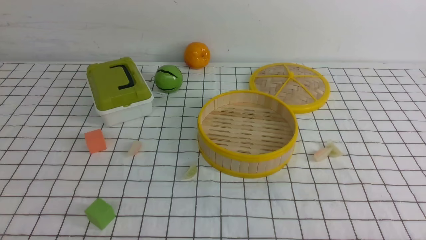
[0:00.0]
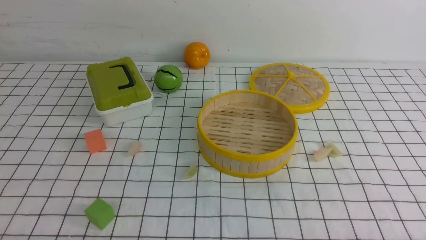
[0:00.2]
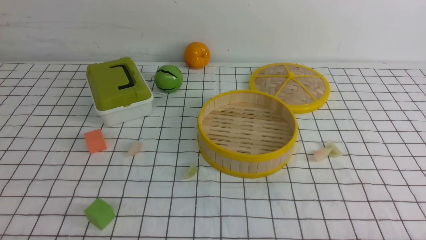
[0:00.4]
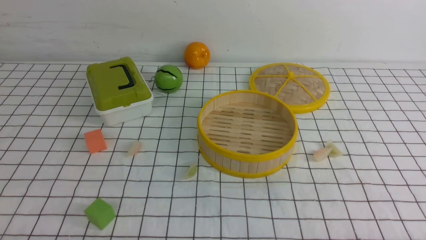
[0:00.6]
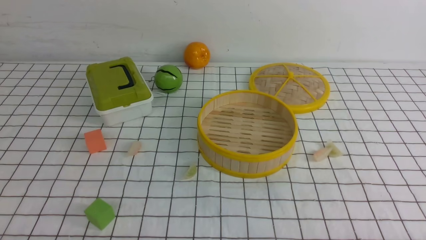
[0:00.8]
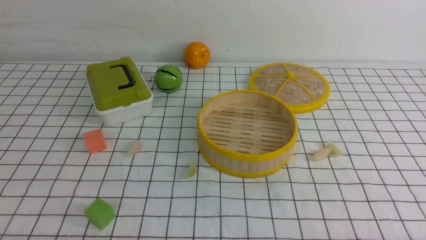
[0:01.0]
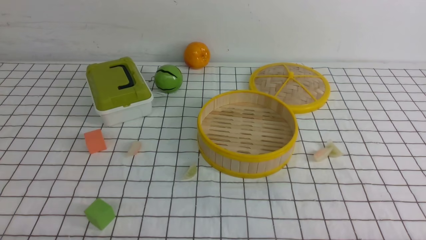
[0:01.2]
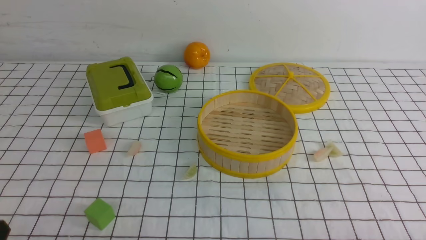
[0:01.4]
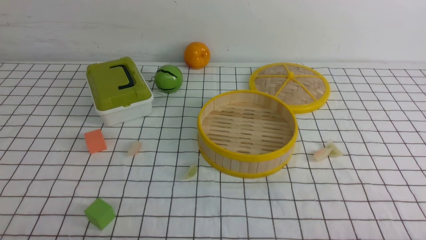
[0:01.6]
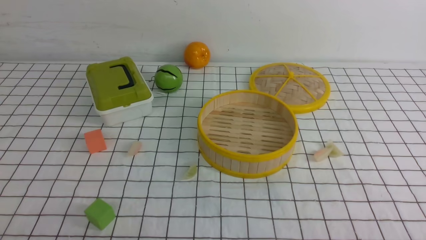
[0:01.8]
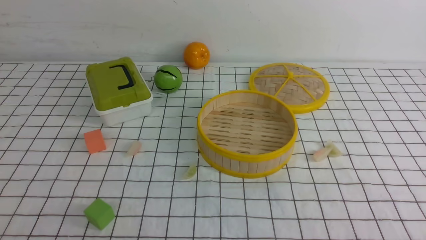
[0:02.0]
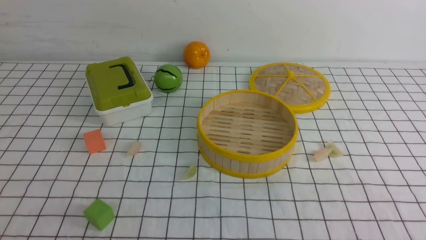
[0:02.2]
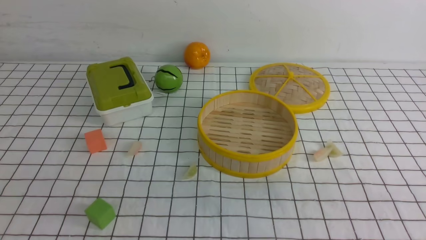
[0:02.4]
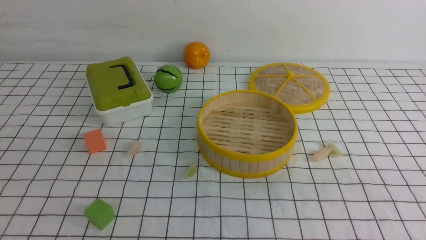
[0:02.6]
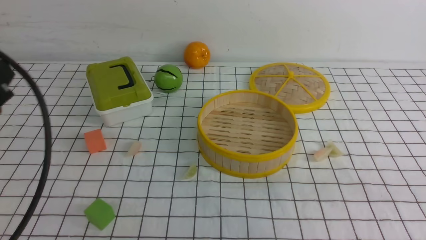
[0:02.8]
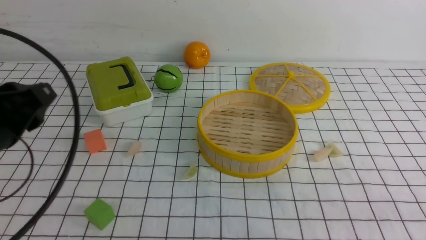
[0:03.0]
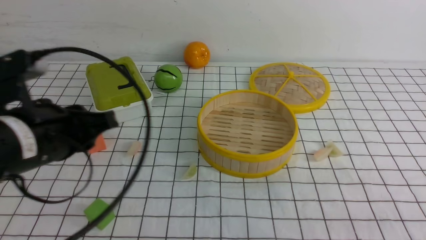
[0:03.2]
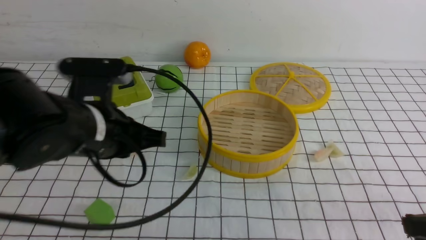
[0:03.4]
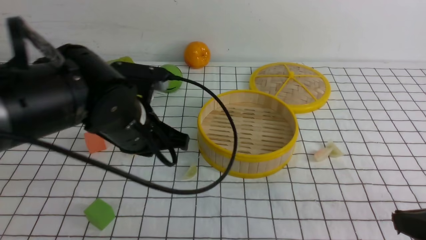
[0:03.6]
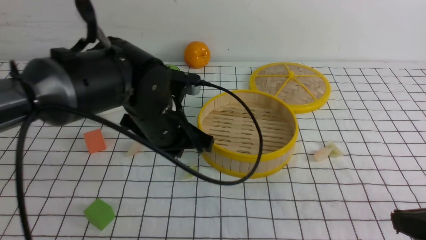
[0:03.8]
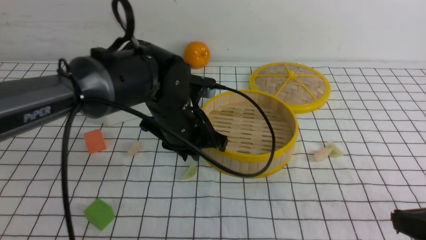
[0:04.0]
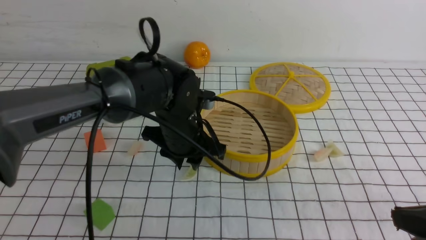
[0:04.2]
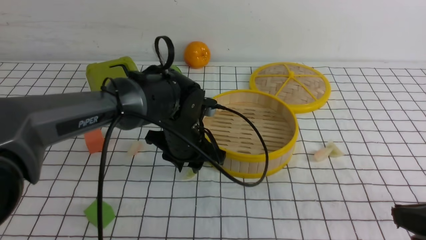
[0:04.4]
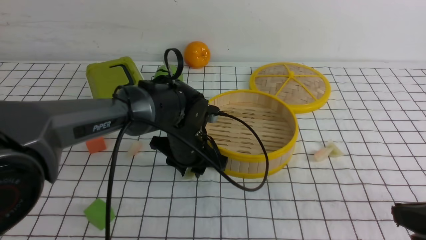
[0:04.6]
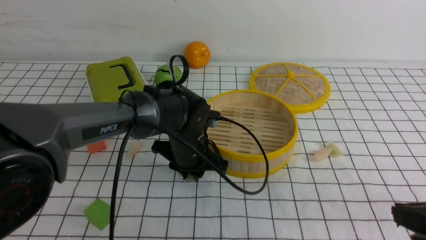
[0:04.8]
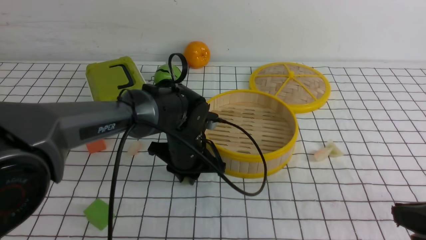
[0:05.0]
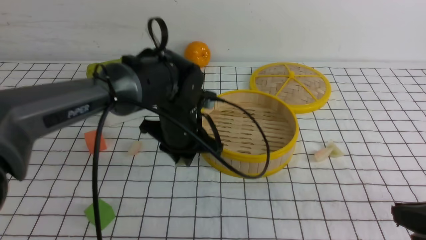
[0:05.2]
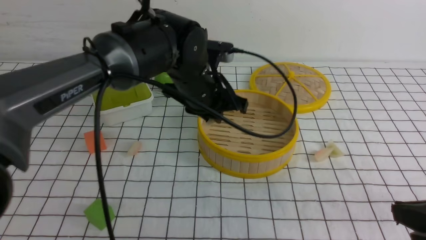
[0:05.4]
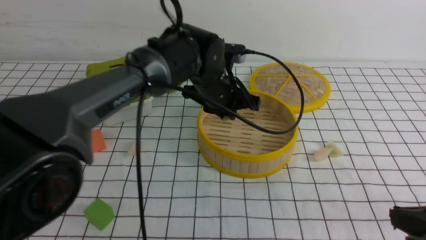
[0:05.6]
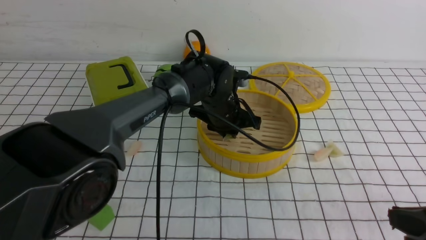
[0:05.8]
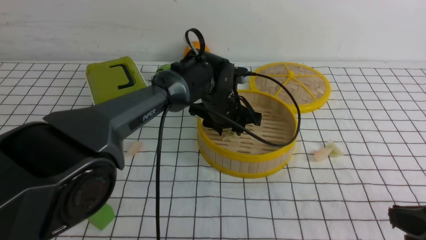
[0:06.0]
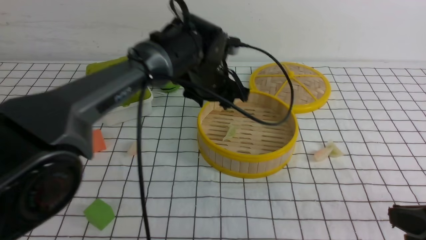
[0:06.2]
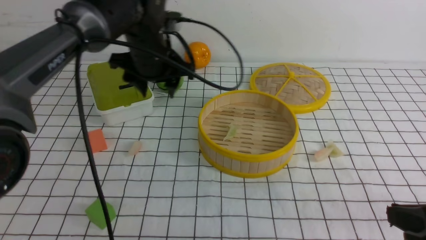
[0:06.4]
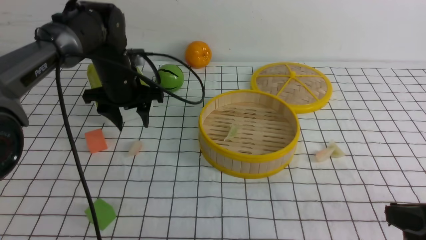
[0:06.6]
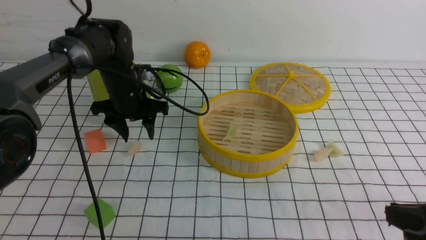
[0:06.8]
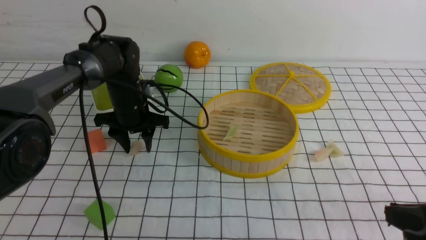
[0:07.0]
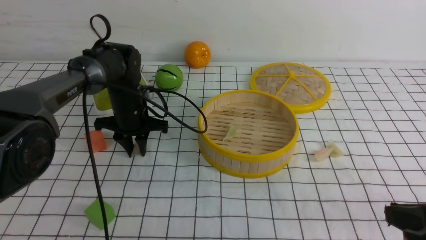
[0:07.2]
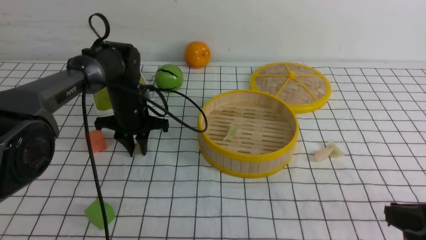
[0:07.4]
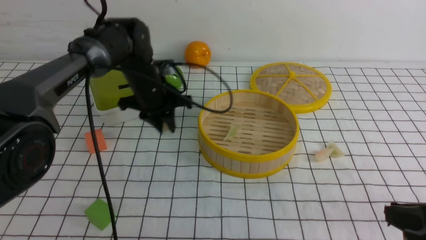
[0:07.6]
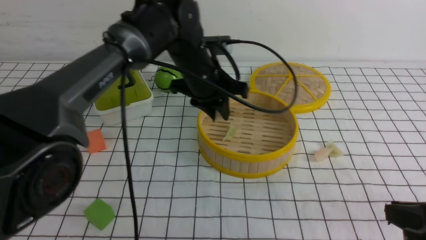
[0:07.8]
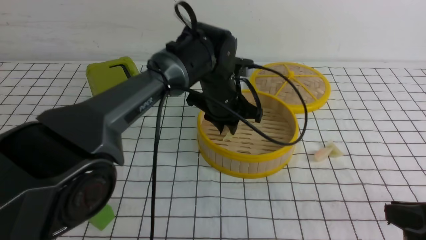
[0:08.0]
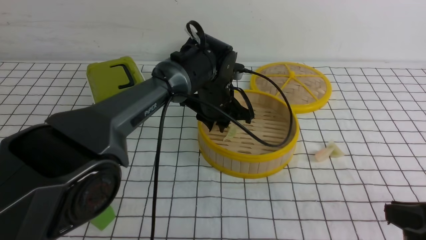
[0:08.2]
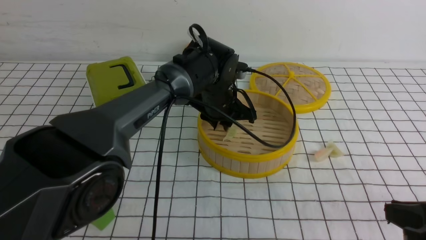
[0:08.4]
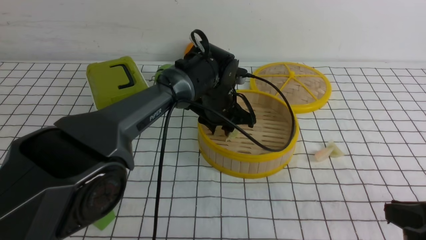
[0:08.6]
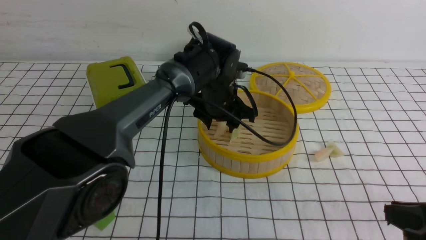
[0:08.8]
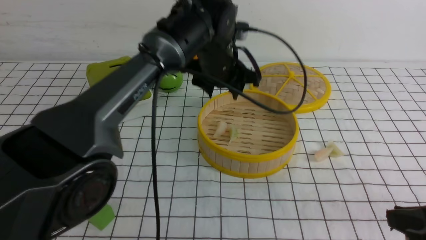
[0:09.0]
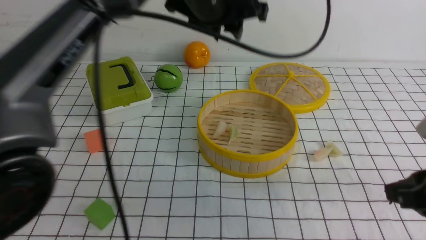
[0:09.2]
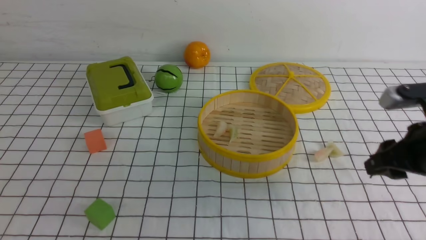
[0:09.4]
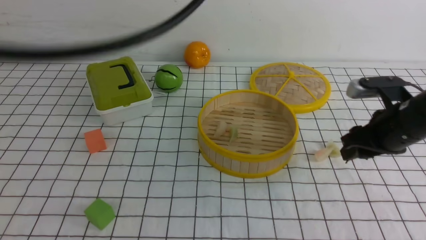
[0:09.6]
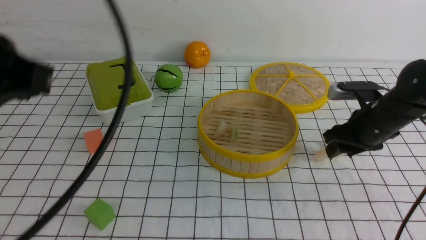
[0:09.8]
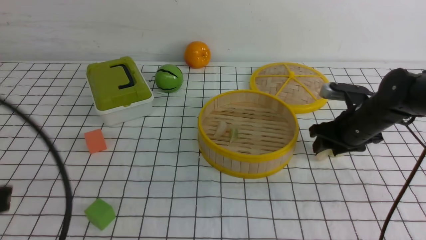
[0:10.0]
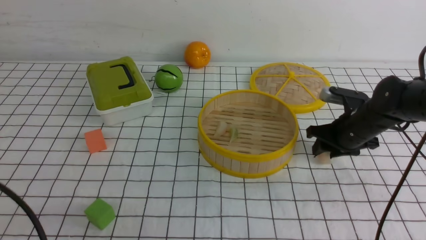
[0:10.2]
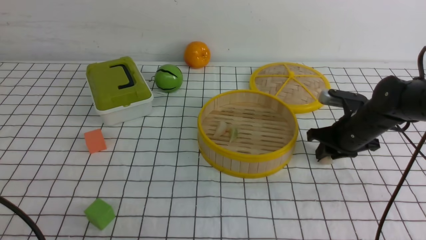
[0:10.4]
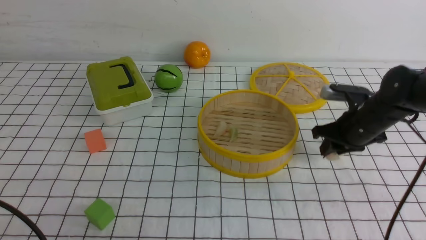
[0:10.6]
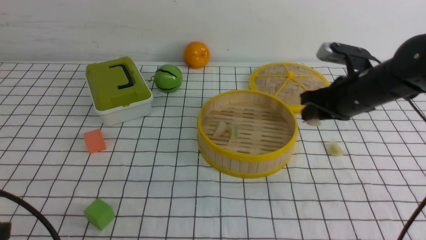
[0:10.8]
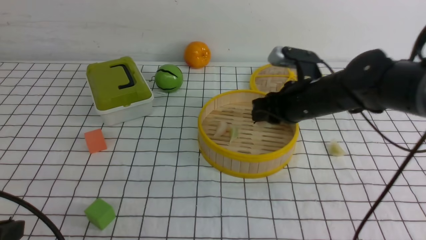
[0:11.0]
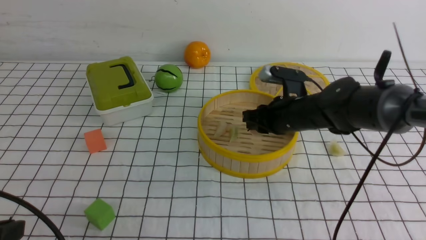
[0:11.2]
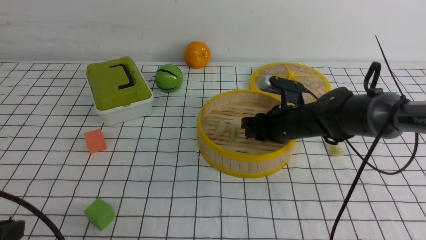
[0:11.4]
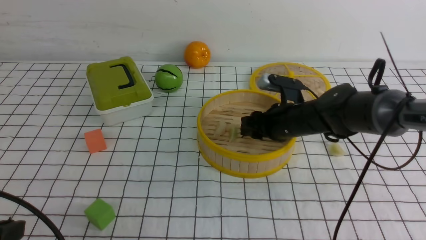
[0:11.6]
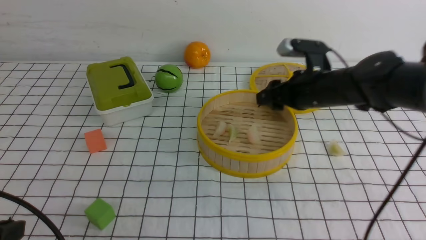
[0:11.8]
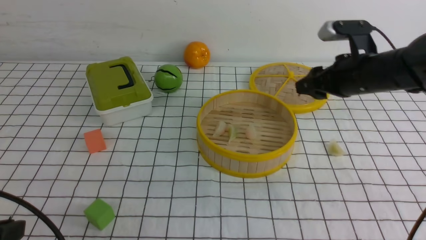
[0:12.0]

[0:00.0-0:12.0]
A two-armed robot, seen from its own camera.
Task of the whole recording: put the dumplings into the steamer on the table with the white tablecloth.
Step, 0:00.0 to 0:04.8: use the left arm to grab a dumpling.
Step, 0:05.2 to 0:06.2: use the left arm to put the dumpling into the steamer.
Step, 0:06.4 to 0:07.2: use the left arm to grab a dumpling.
Step, 0:07.4 to 0:08.8: use the left arm to put the dumpling into the steamer.
Step, 0:09.0 to 0:10.4: use the right arm to grab a dumpling.
Step, 0:10.6 to 0:11.6: use the right arm to put the dumpling into the steamer.
0:01.6 to 0:03.0: The left gripper goes about 20 cm forward and upward.
0:03.0 to 0:04.4: The left gripper is displaced to the right, forward and downward by approximately 25 cm, and closes, then opens again.
0:04.4 to 0:06.0: The left gripper heads forward, covering approximately 10 cm.
0:06.0 to 0:07.6: The left gripper shifts about 10 cm to the left, and closes up.
0:07.6 to 0:09.0: The left gripper travels upward and to the right by approximately 15 cm, and opens.
0:09.0 to 0:10.4: The left gripper travels backward and to the left by some 40 cm, and closes up; the right gripper travels forward by roughly 25 cm, and opens, then closes again.
0:10.4 to 0:12.0: The right gripper is displaced upward by some 10 cm, travels to the left and back again, roughly 10 cm each way, and opens its fingers.

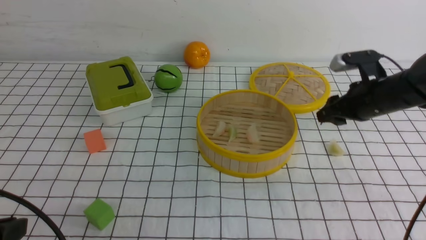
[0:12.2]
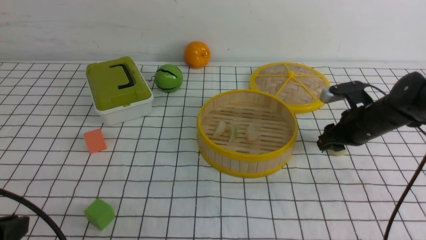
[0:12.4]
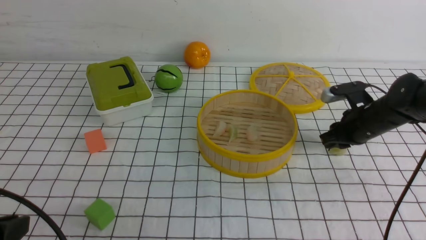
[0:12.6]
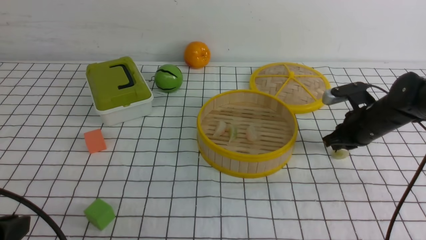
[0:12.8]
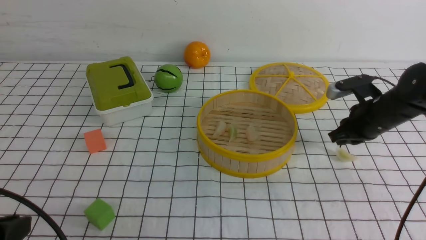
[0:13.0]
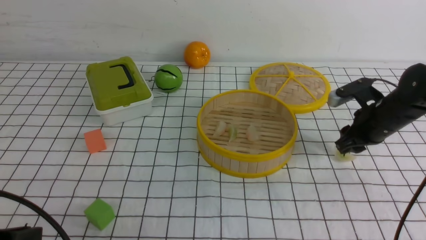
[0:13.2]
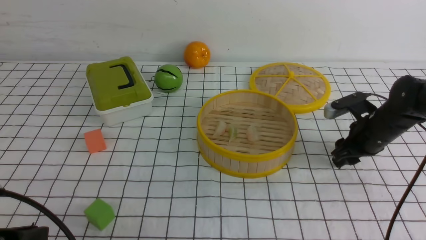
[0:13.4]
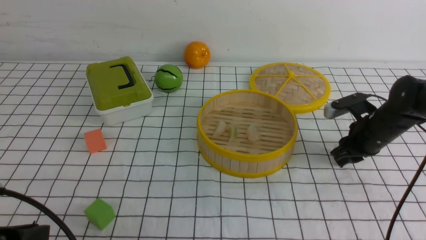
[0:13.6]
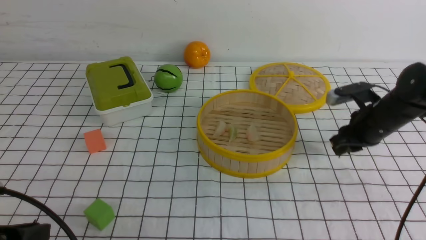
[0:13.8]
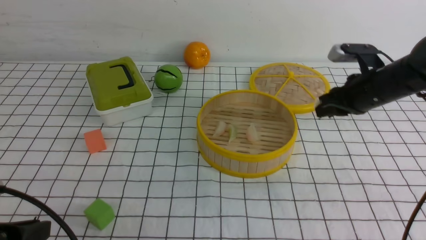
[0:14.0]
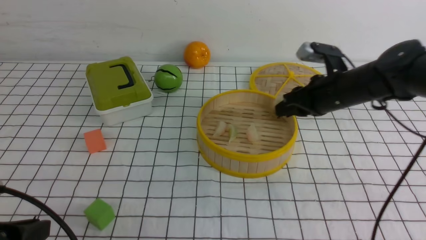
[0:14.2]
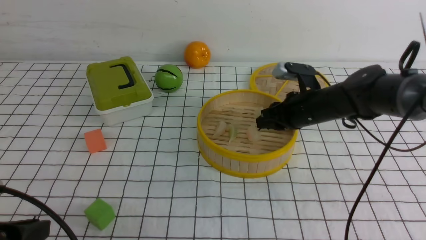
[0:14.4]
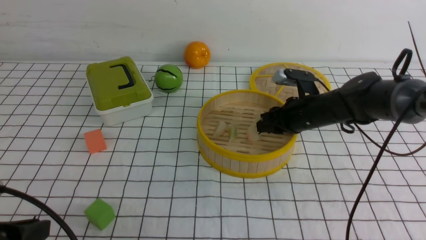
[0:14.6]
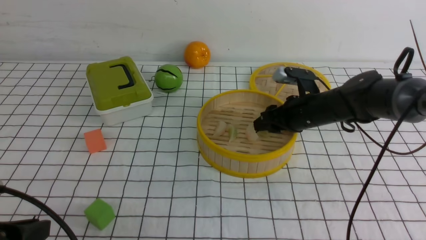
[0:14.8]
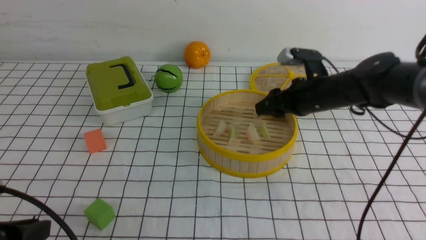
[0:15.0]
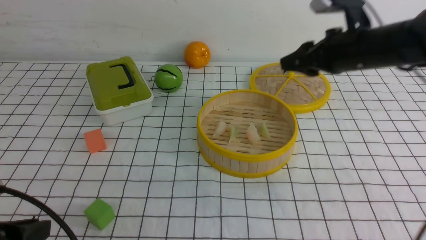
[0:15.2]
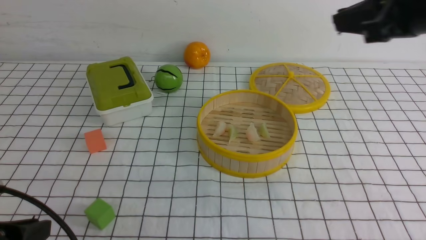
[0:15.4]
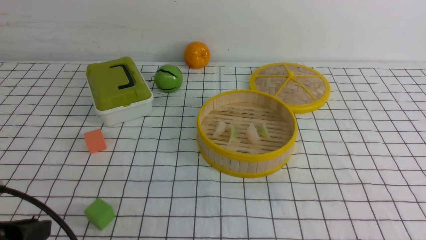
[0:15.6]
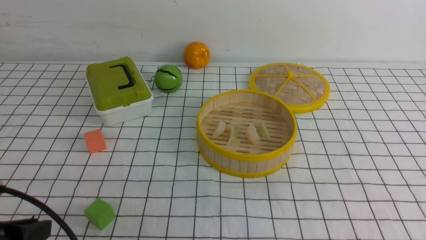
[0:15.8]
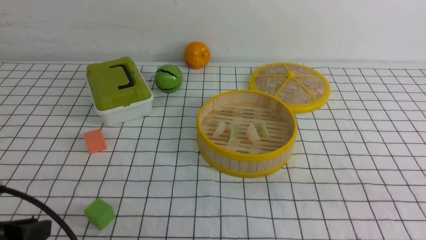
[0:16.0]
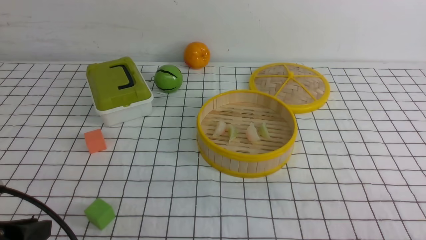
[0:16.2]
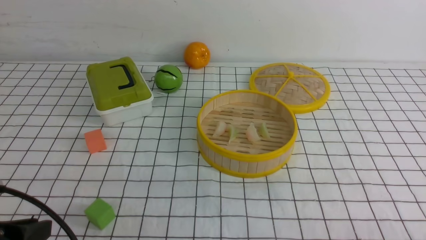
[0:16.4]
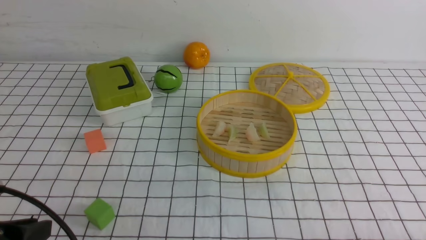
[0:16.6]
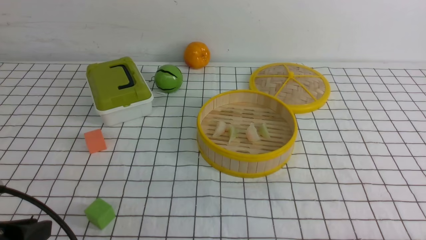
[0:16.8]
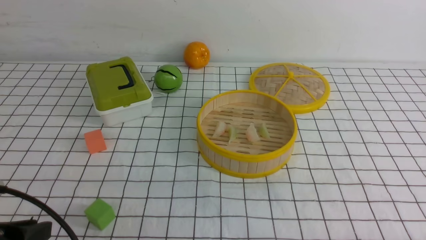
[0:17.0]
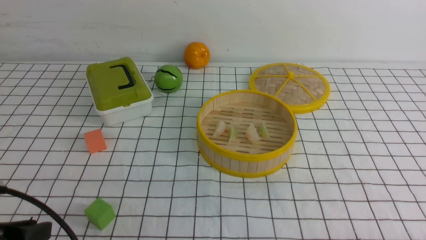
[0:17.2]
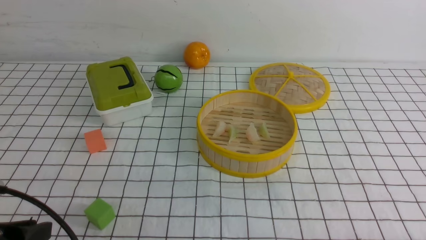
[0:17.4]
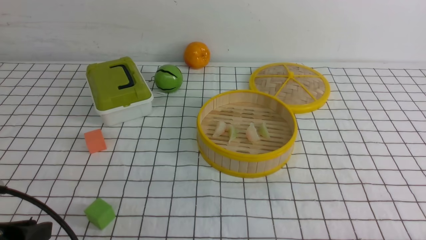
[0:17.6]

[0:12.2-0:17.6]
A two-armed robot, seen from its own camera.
Task of the whole recording: put the dumplings into the steamer on the table with the white tablecloth.
Step, 0:12.2 to 0:13.6: use the right arm to grab a dumpling.
Step, 0:13.8 to 0:15.0: use the right arm to put the dumpling into the steamer.
0:12.2 to 0:13.6: The right gripper closes its fingers.
0:13.6 to 0:15.0: The right gripper is displaced to the left and upward by roughly 15 cm.
0:15.0 to 0:16.2: The right gripper travels backward by approximately 30 cm, and closes its fingers.
